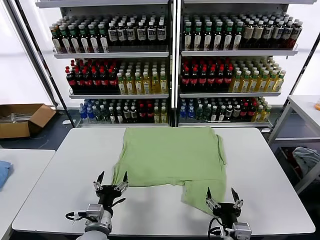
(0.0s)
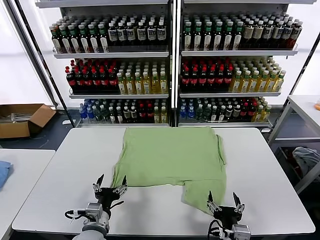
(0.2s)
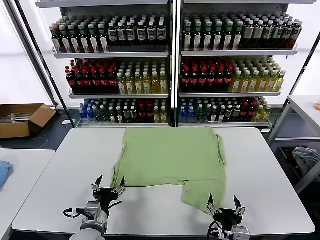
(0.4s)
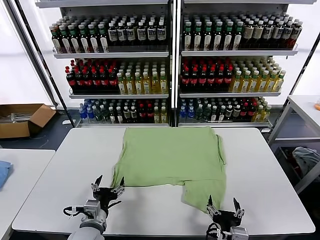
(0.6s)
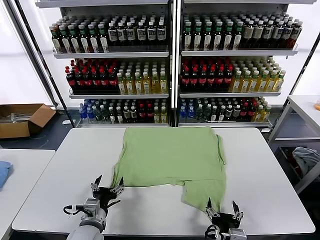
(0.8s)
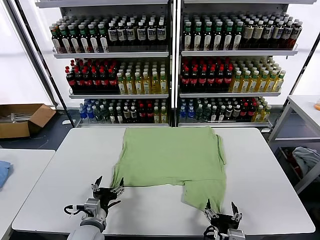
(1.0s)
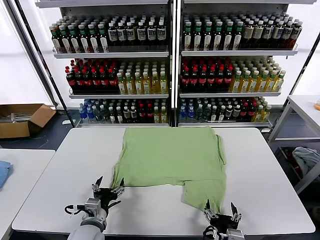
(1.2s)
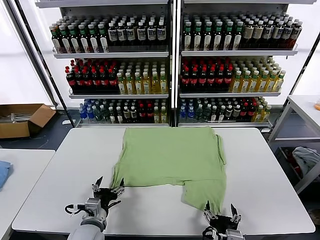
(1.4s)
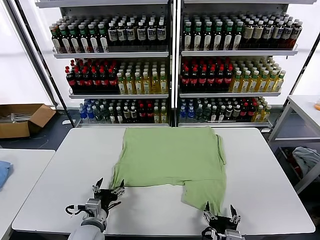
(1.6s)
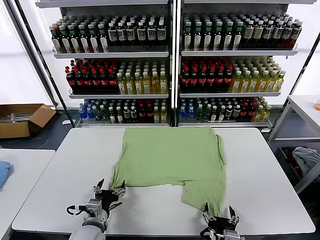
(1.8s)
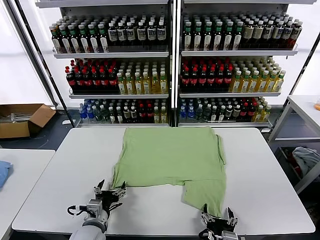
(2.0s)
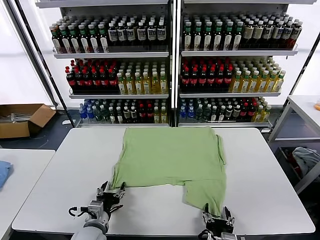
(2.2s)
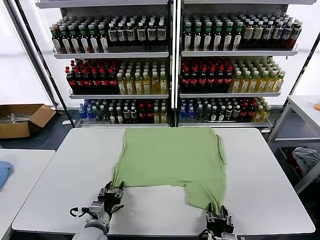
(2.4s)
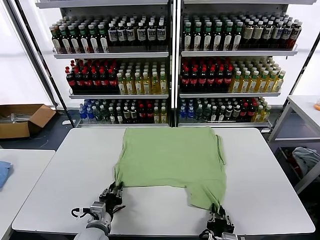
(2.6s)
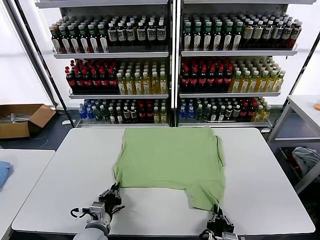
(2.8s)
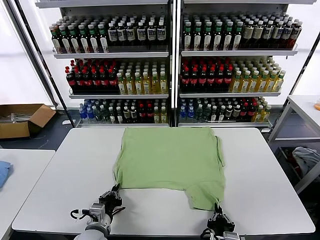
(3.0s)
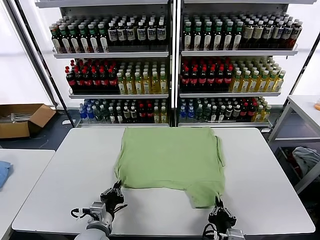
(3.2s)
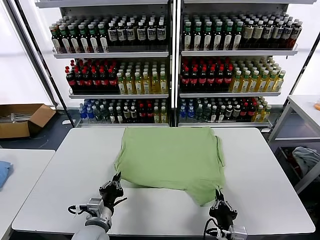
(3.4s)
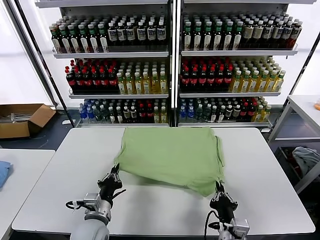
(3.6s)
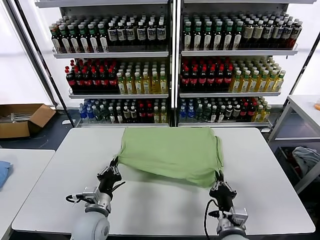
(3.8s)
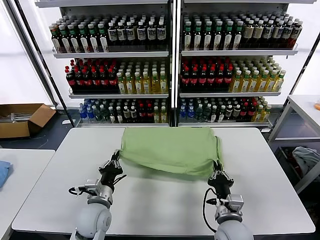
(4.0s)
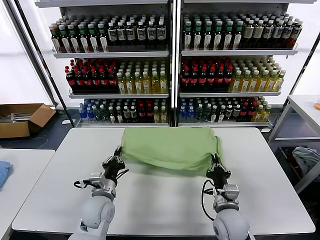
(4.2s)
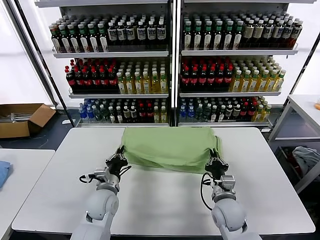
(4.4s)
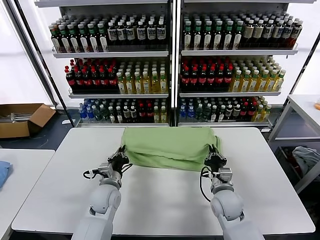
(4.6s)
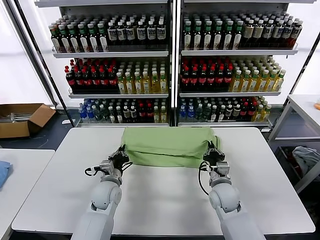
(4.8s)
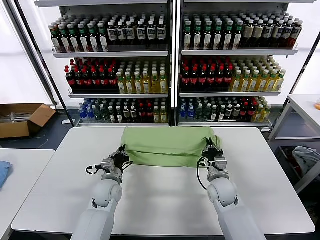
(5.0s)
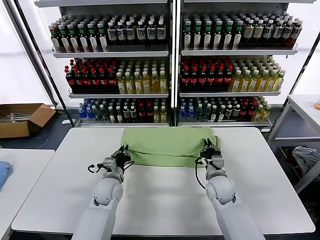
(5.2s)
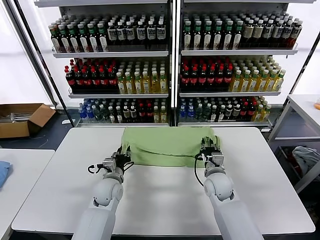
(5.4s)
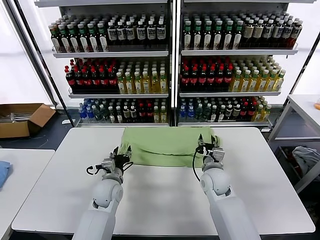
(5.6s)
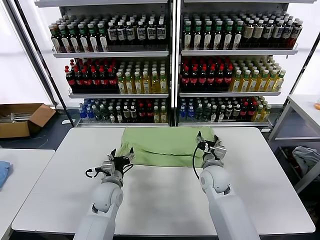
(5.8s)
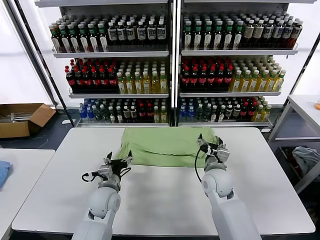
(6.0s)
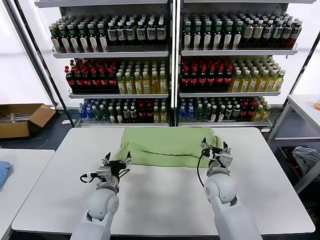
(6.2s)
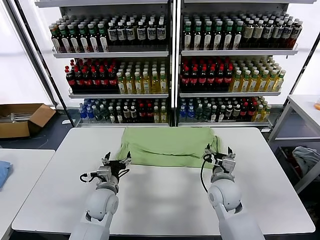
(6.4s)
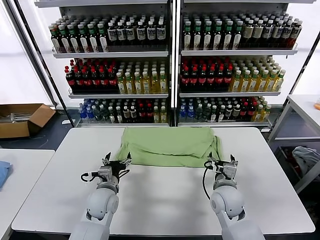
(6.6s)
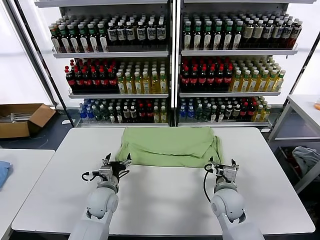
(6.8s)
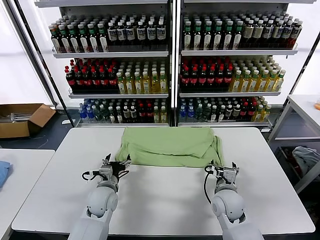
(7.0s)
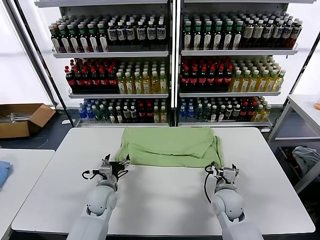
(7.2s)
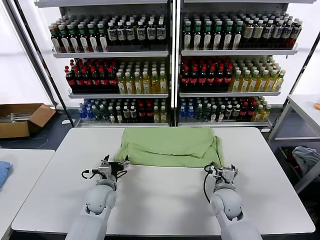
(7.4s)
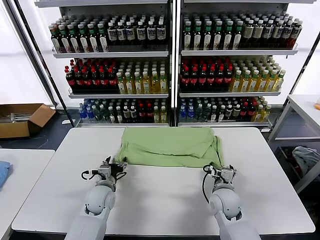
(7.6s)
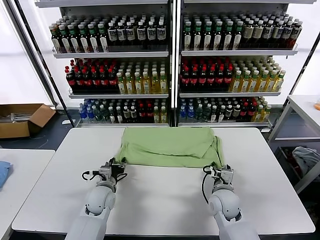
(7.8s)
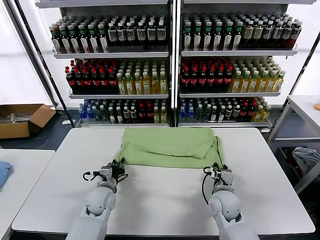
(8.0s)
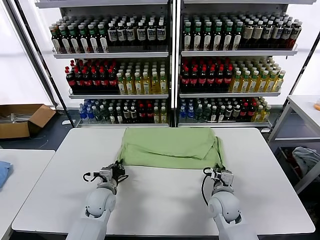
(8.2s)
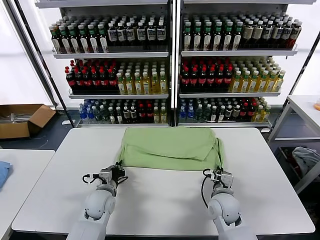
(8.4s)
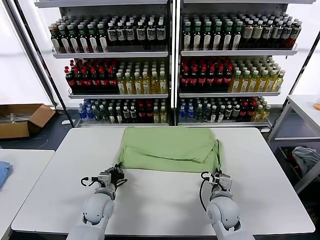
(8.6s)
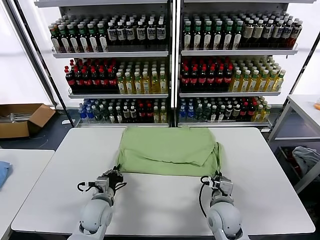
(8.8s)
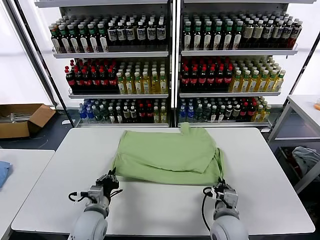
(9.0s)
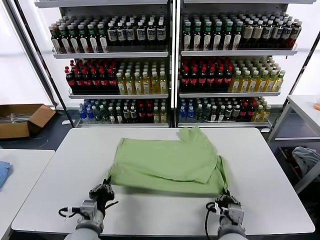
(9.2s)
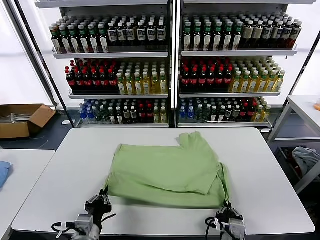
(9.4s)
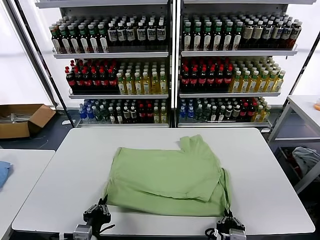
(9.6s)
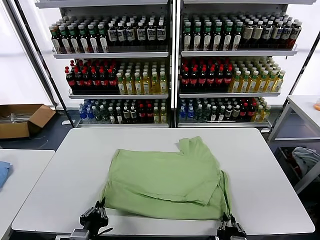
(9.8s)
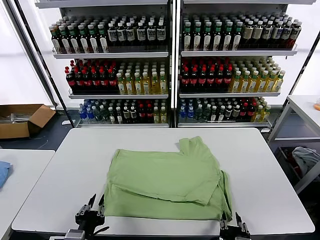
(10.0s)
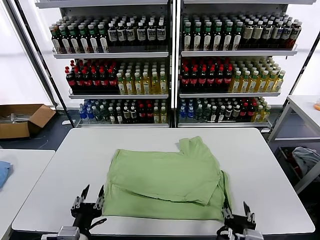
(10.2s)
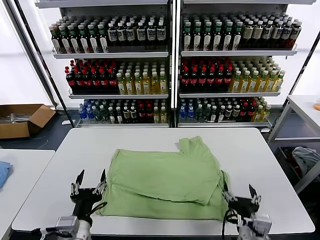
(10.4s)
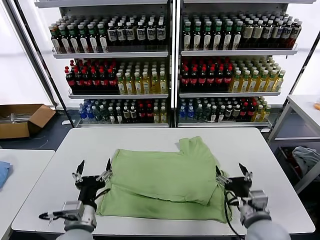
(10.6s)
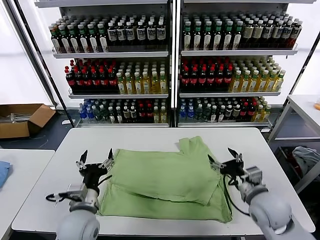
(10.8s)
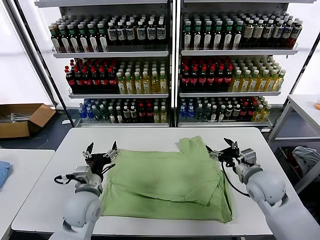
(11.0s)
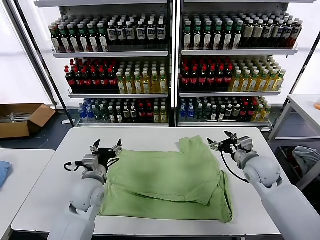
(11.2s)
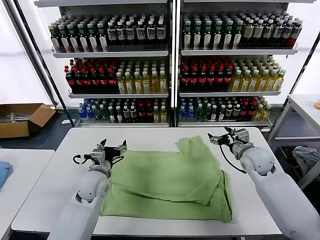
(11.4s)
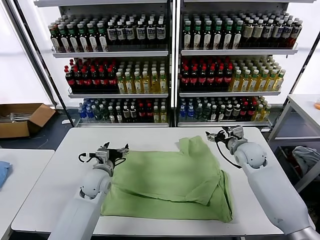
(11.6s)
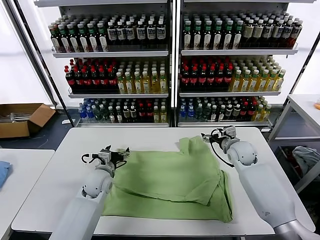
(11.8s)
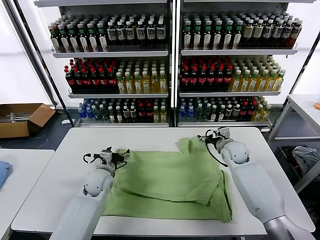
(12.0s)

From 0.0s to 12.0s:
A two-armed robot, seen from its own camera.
Task of the whole recording: fold and organize the clothes.
Step, from 0.0s to 2.8s: use both grippers simultaneously to clamp the lower edge of the clothing fabric.
Step, from 3.2s to 5.6s: use both grippers to drag the lower edge of the fabric forward and fold it over the upper edge.
Step, from 5.8s to 10.0s: Drag the clothes downward with both gripper.
From 1.6s to 3.0s: The right gripper closes up. Meanwhile the left gripper closes.
From 3.0s to 4.4s: The grippers both shift forward by roughly 15 cm.
From 4.4s to 6.0s: The right gripper shifts about 10 cm forward, and opens up, while the left gripper opens up.
From 6.0s to 7.6s: The right gripper moves roughly 5 cm.
From 7.6s to 9.0s: The grippers both shift backward by roughly 10 cm. The right gripper closes up; the left gripper closes its fingers.
From 9.0s to 10.4s: The two grippers go some 10 cm backward and upward. The left gripper opens its fingers; the right gripper opens.
From 10.4s to 12.0s: The two grippers go some 30 cm forward.

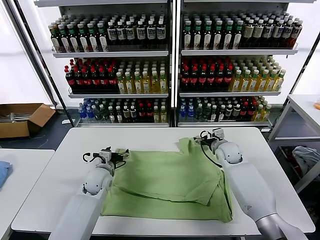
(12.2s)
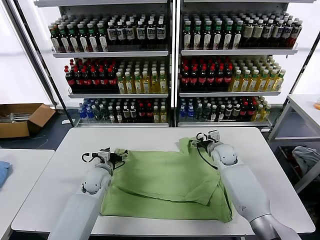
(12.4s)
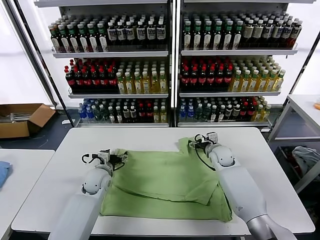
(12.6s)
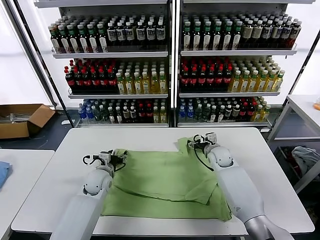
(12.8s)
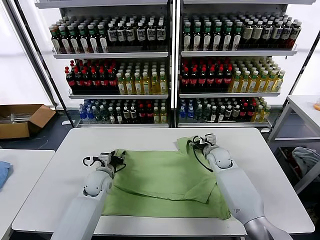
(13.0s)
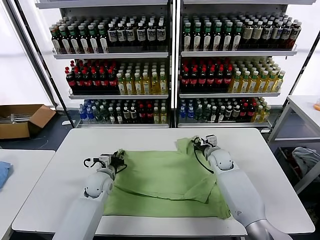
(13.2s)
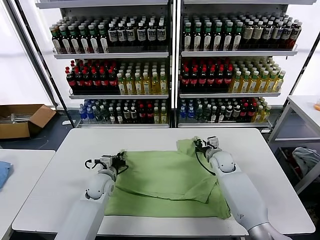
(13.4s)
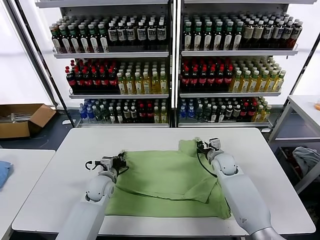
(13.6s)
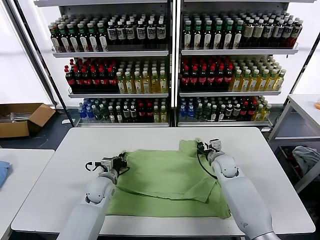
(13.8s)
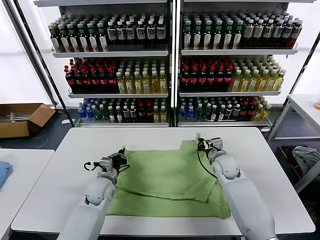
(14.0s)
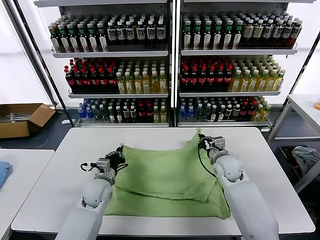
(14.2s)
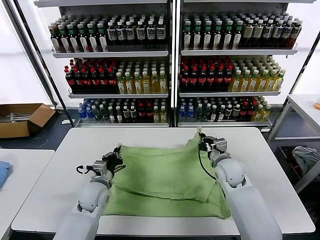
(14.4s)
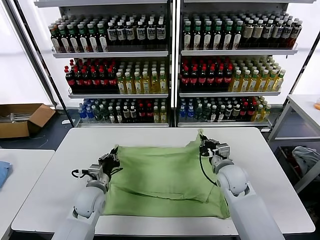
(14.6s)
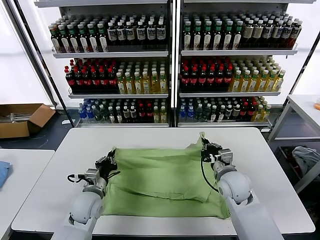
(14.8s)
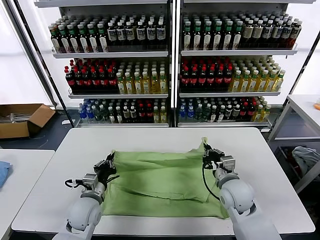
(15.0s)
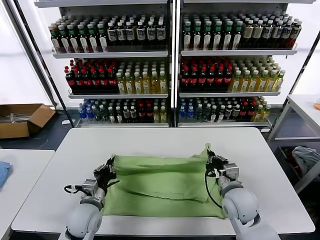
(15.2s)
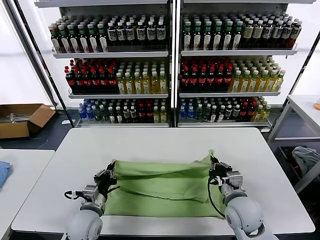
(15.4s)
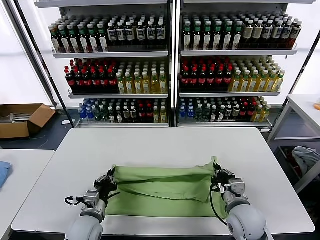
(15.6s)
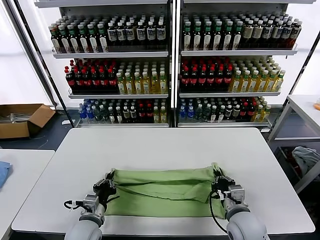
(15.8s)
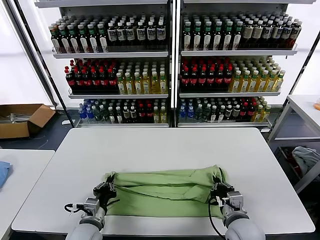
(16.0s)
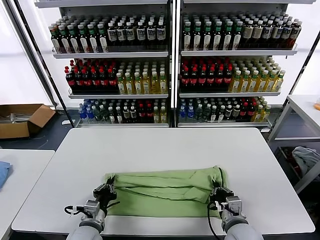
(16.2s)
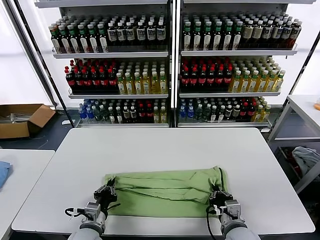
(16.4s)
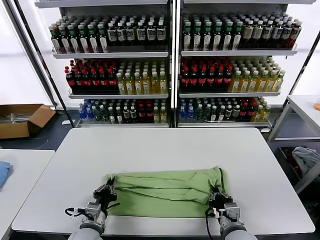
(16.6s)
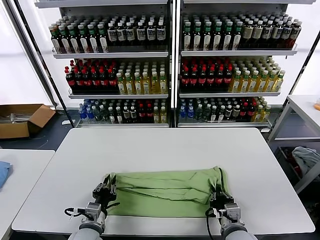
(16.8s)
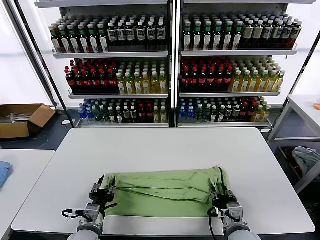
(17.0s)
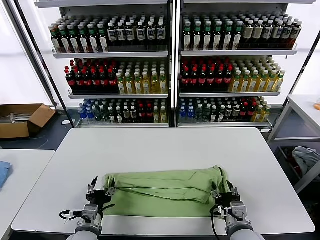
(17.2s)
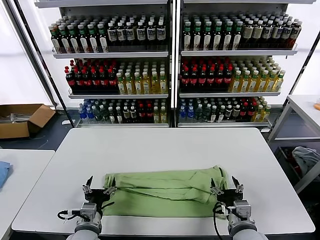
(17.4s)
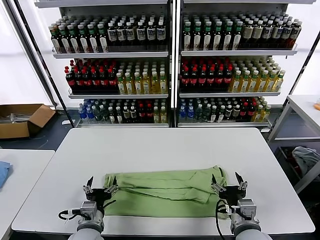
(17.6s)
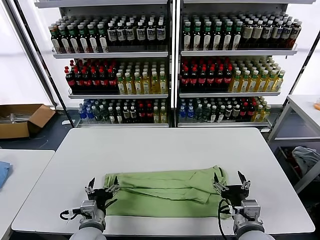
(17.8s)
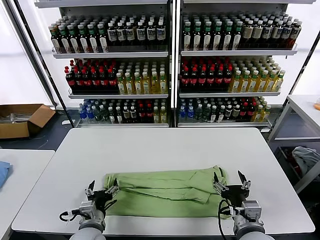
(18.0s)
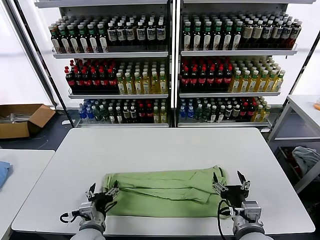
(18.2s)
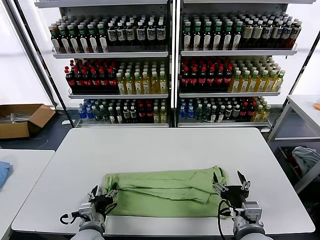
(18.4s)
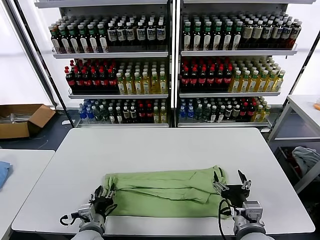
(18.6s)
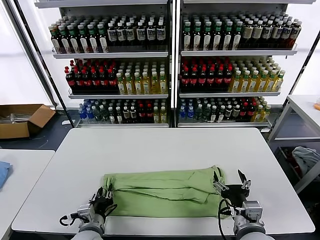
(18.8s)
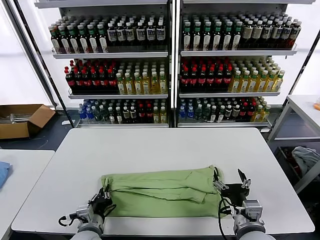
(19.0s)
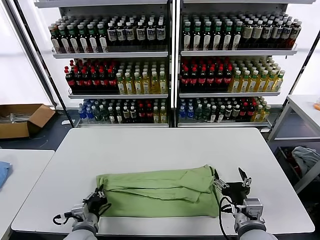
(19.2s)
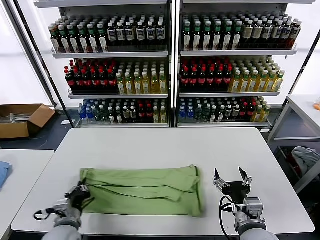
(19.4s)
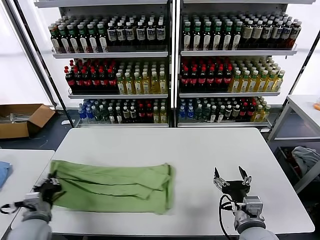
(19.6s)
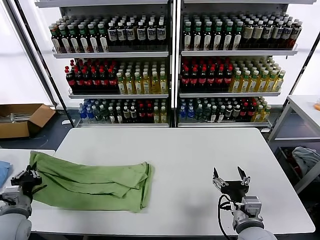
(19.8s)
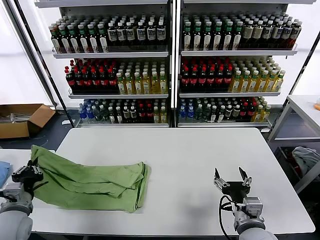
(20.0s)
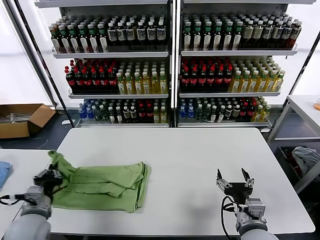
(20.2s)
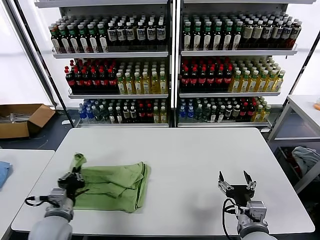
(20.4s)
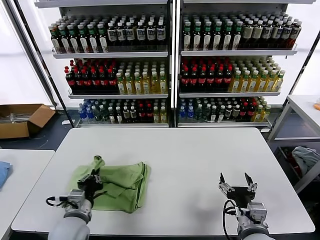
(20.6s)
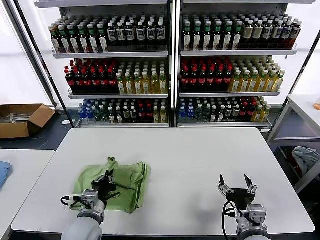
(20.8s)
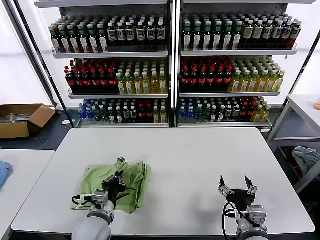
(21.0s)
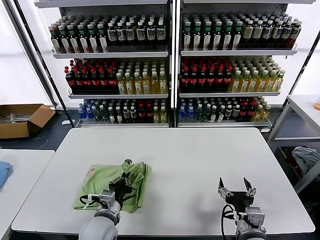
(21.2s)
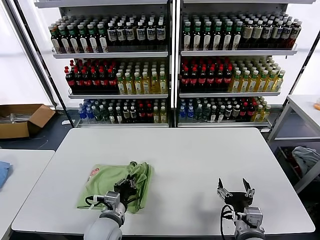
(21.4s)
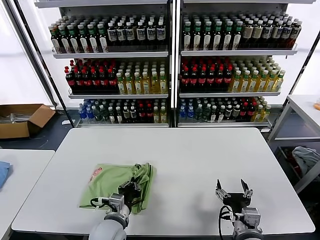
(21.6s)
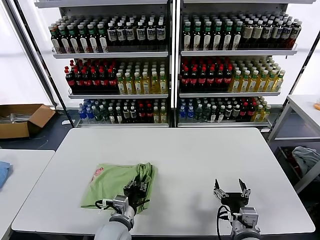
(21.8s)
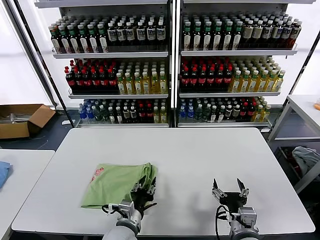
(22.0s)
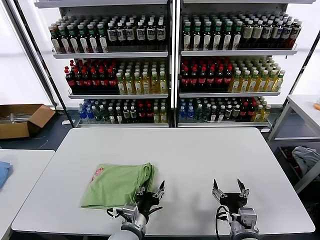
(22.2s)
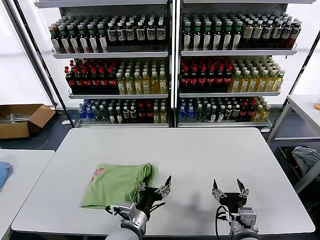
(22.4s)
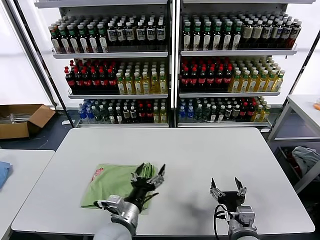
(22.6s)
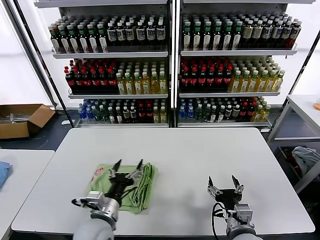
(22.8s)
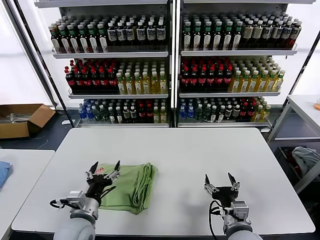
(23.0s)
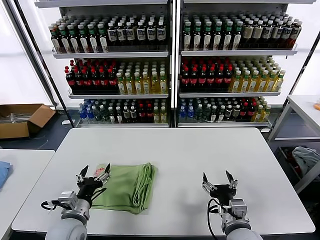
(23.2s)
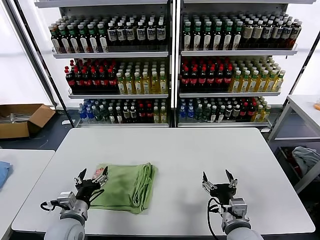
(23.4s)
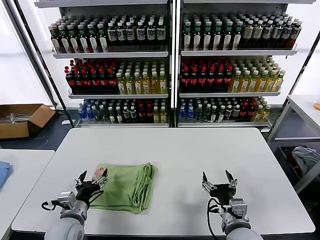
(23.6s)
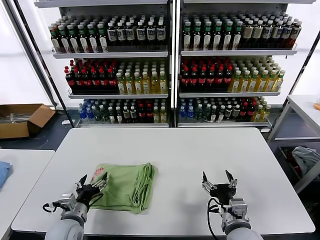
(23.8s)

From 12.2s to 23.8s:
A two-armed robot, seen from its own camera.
Task of the whole recording: fold and organize the clothes.
Step, from 13.8s to 17.2s: use both grippers to drag the upper edge of the fabric backward and fold it over the lower edge.
Step, from 17.4s to 19.0s: use the left gripper to clamp the left edge of the fabric.
Step, from 19.2s to 22.2s: use the left gripper to drag the left edge of the fabric to the left and folds it over the right edge.
From 12.2s to 13.6s: The left gripper closes its fingers; the right gripper closes up.
From 13.6s to 15.0s: The right gripper shifts approximately 15 cm backward and upward; the left gripper is displaced backward by approximately 10 cm.
From 15.0s to 16.6s: The right gripper goes about 15 cm backward and downward, while the left gripper moves backward, roughly 10 cm.
From 16.6s to 18.0s: The left gripper opens its fingers, while the right gripper travels upward by about 5 cm, and opens up.
From 18.0s to 19.4s: The left gripper shifts about 5 cm to the left, and closes up.
From 19.4s to 21.0s: The left gripper travels to the right by approximately 10 cm.
From 21.0s to 22.4s: The left gripper shifts some 10 cm to the right, and opens its fingers.
From 22.4s to 23.8s: The left gripper shifts roughly 20 cm to the left.
